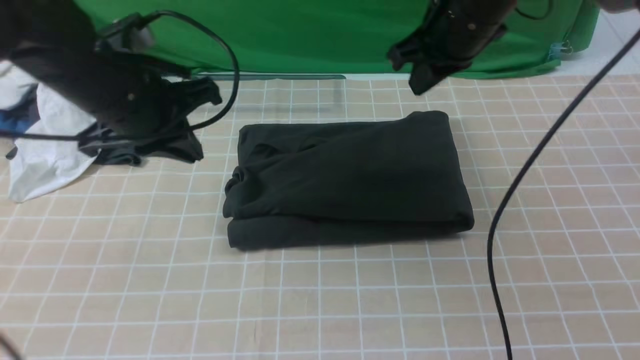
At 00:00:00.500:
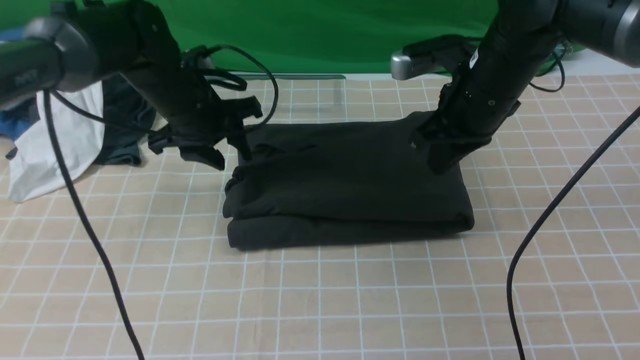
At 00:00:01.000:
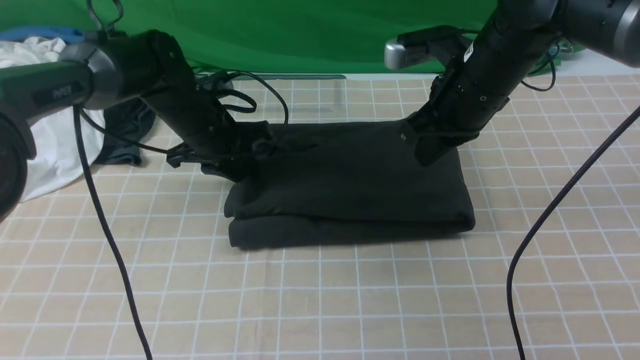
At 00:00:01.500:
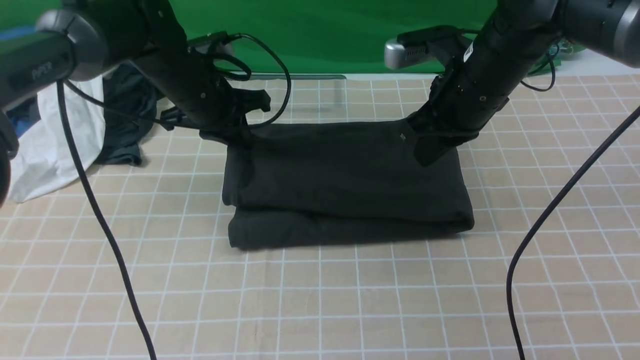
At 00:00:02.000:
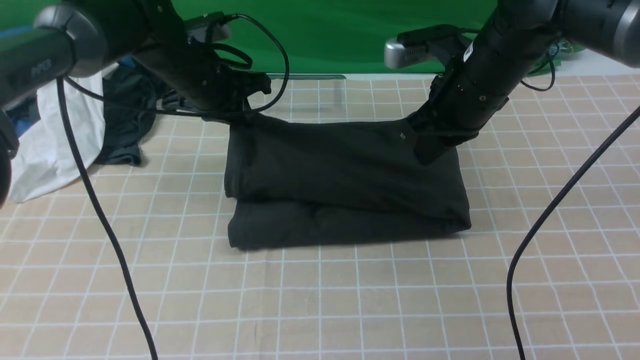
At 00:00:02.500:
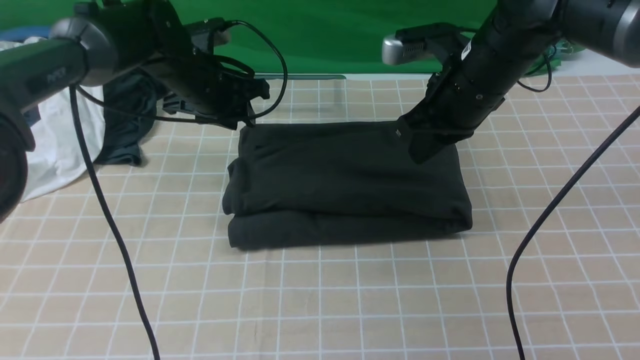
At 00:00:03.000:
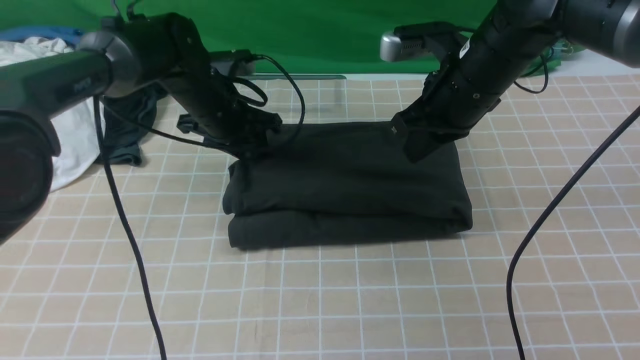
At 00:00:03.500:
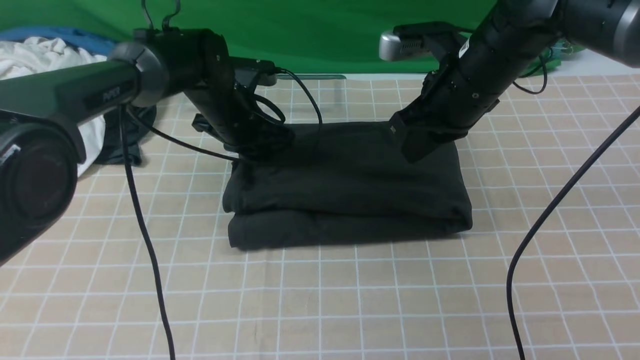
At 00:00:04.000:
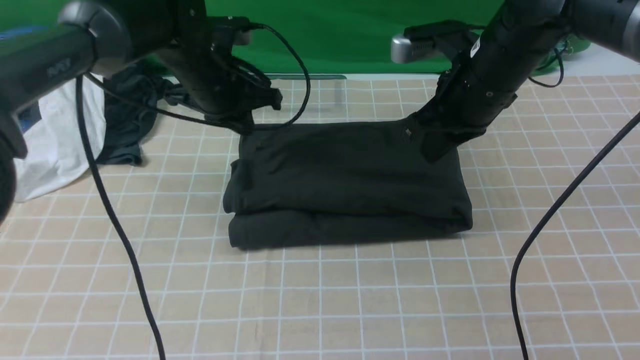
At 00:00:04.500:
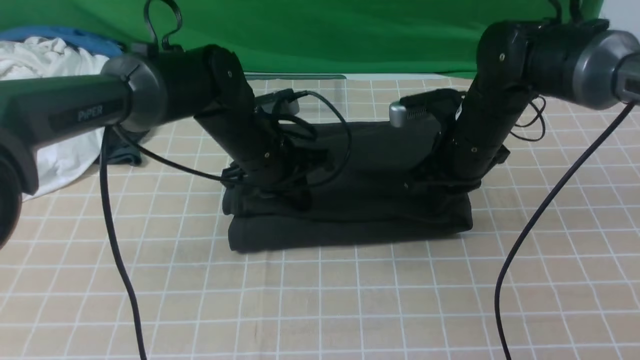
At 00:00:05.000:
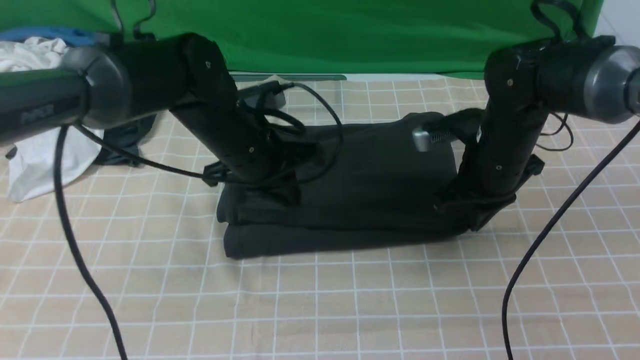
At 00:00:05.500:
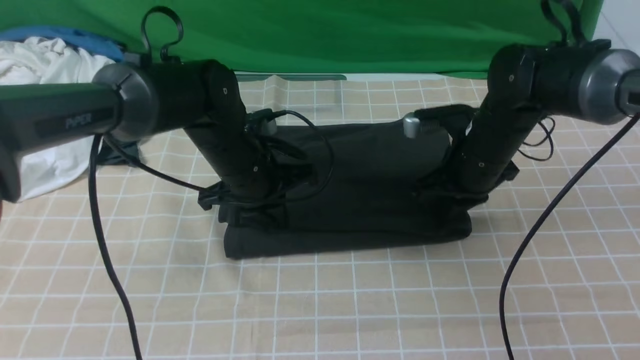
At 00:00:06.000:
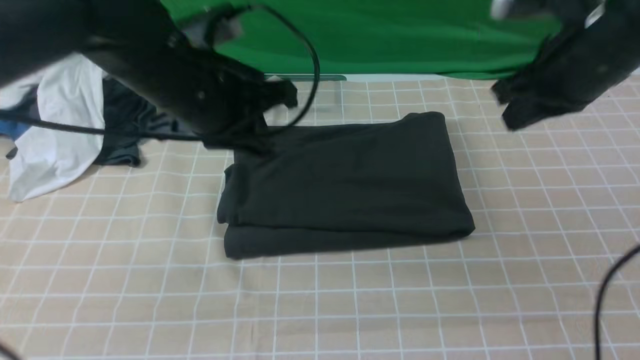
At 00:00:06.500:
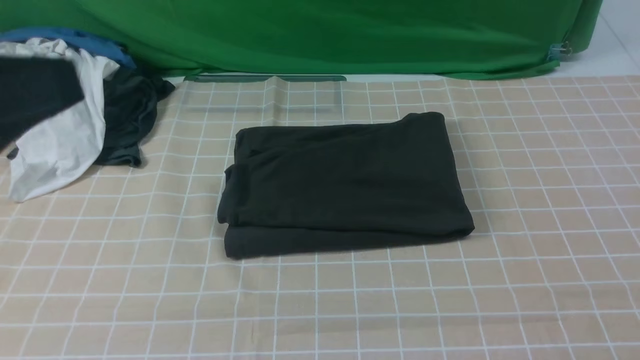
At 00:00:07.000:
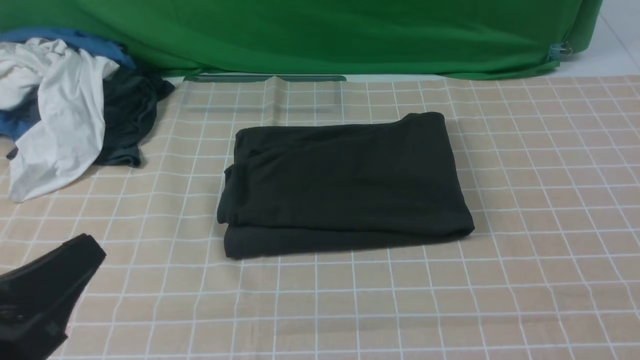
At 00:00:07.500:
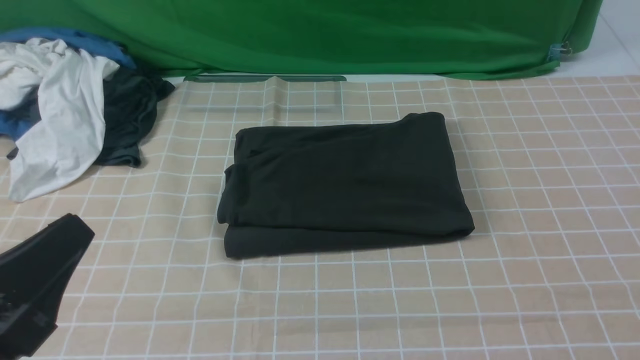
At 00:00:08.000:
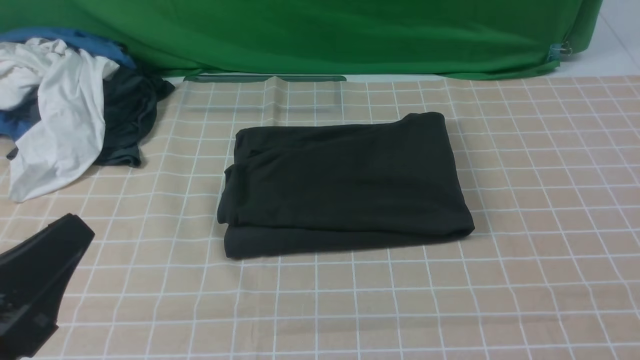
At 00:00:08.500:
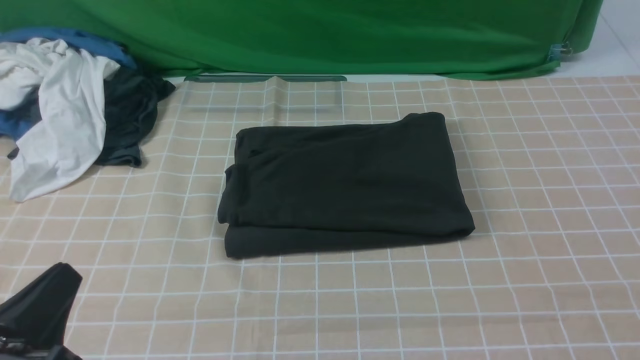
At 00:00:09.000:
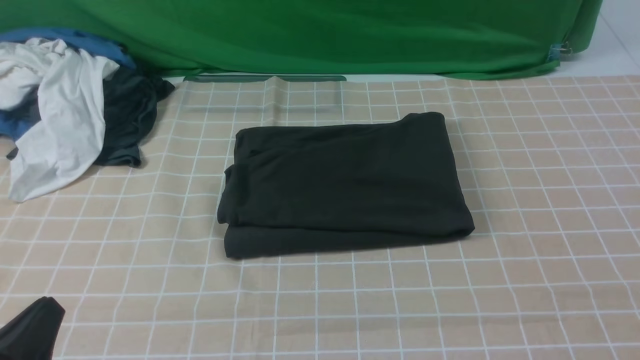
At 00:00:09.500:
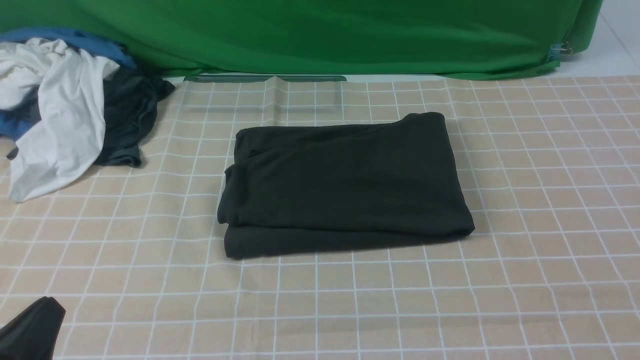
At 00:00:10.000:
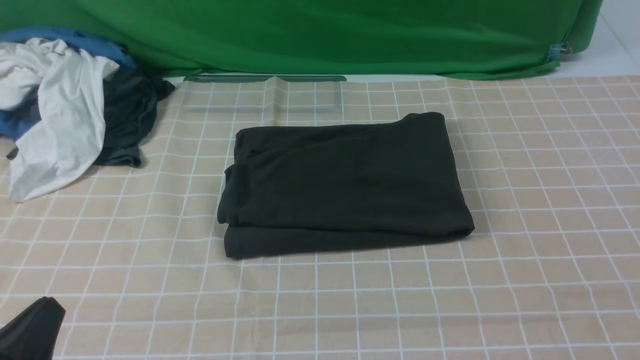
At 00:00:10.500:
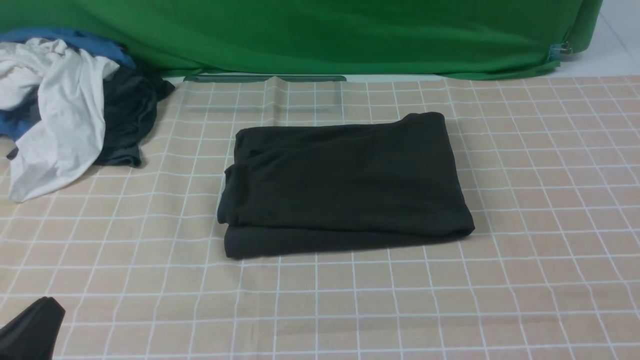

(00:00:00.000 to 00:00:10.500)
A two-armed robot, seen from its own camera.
00:00:00.000 - 00:00:02.000: The right gripper changes place by about 5 cm; the left gripper is displaced forward and downward by about 15 cm, and opens, then closes again.
00:00:02.000 - 00:00:04.000: The left gripper opens, then closes again.
00:00:04.000 - 00:00:06.500: The left gripper travels backward and upward by about 40 cm. Meanwhile the right gripper shifts approximately 40 cm backward, upward and to the right.
00:00:06.500 - 00:00:08.500: The left gripper moves downward, about 20 cm.
00:00:08.500 - 00:00:10.500: The grippers make only small movements.

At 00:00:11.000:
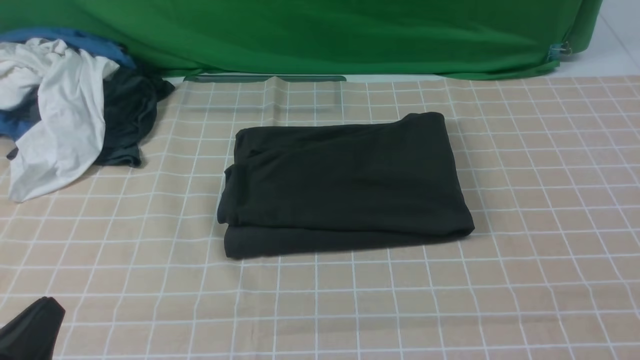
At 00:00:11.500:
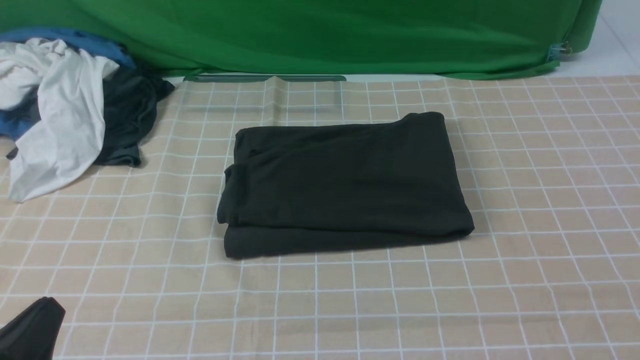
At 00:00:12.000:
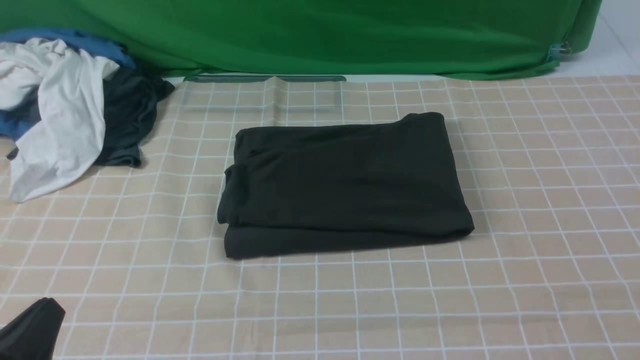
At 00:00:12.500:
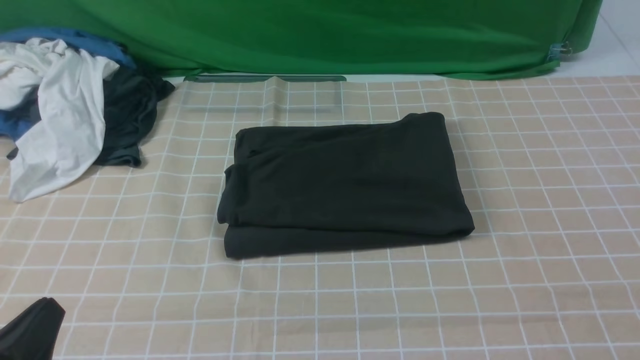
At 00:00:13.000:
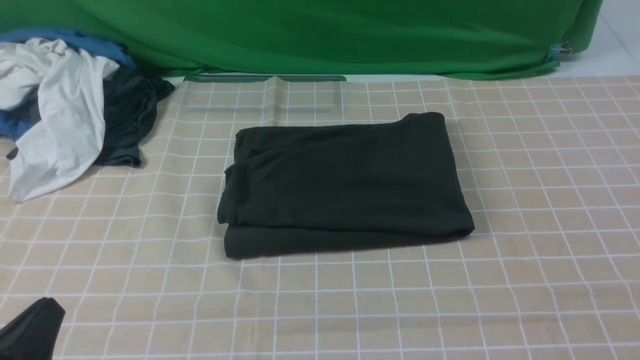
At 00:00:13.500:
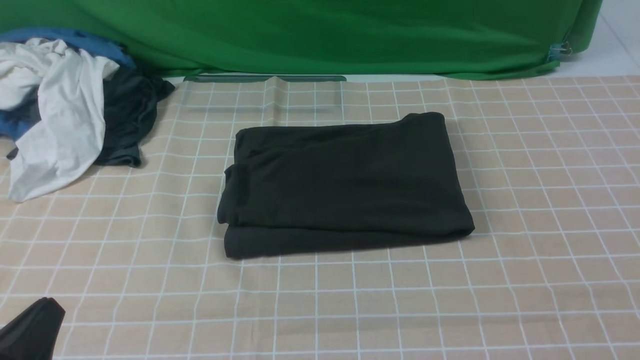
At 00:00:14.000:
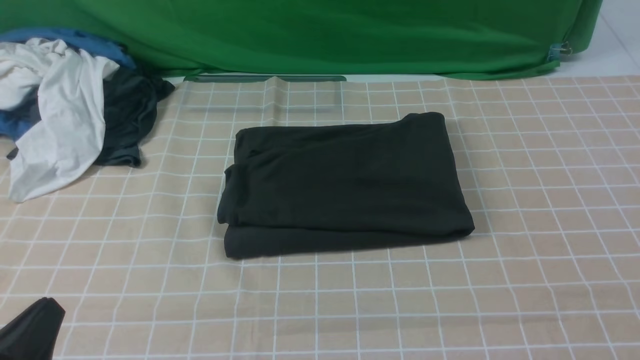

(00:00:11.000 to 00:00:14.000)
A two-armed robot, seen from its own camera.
00:00:12.500 - 00:00:14.000: Both grippers stay put.
